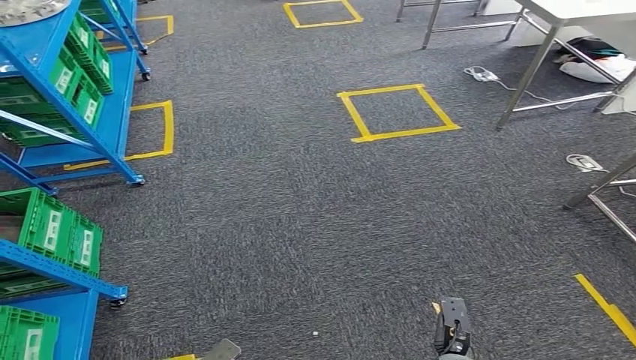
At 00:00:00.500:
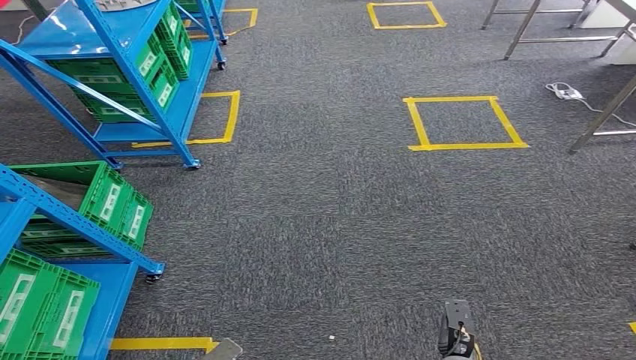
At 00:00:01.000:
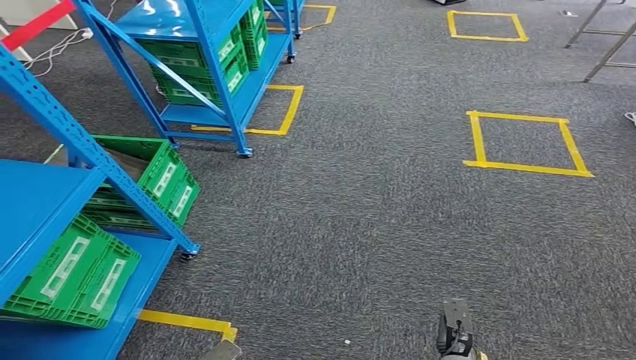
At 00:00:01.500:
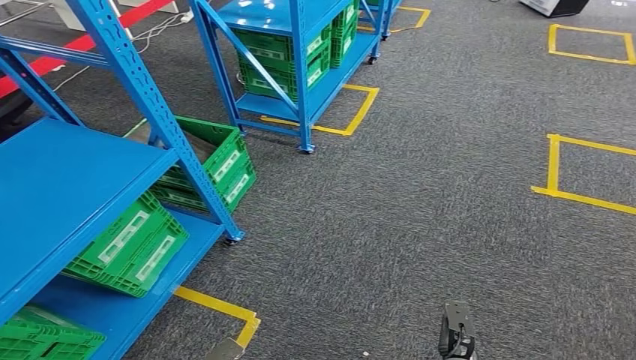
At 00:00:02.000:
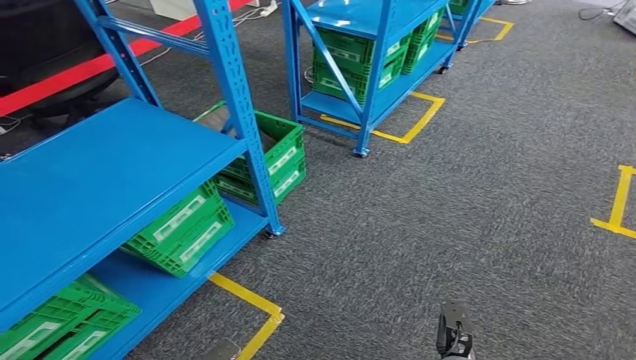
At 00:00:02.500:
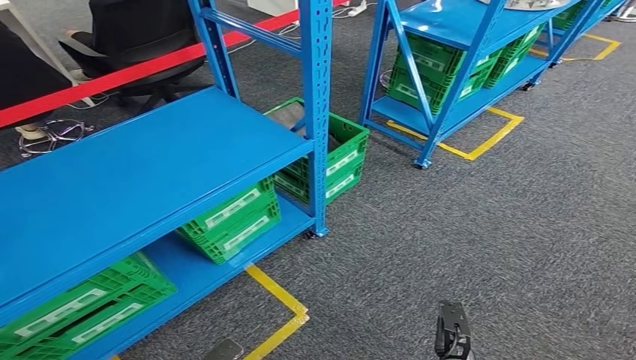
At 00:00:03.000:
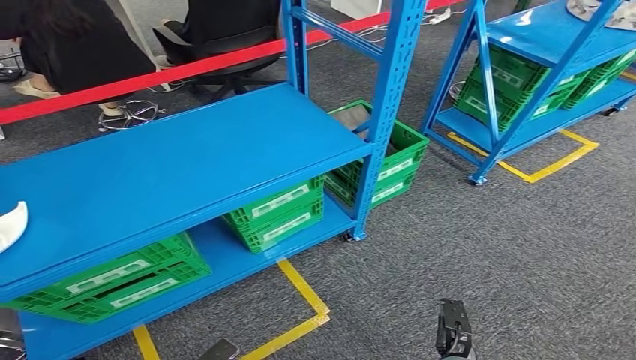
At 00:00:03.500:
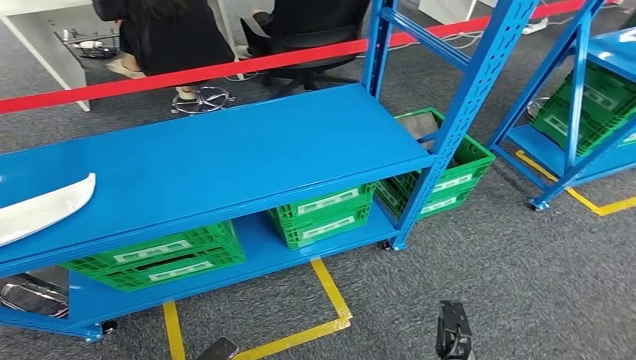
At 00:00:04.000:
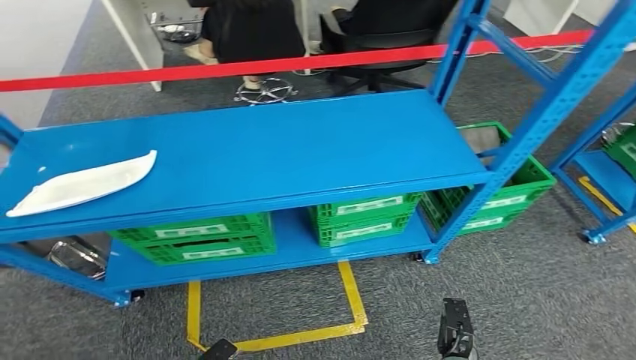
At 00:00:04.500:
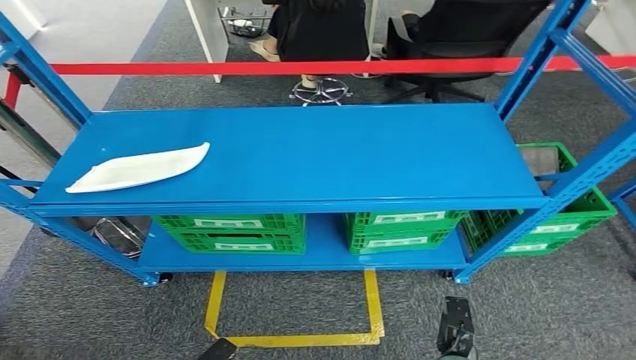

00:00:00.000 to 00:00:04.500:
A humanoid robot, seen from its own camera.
Step, 00:00:00.000 to 00:00:04.500: Move to the initial position of the workbench.
